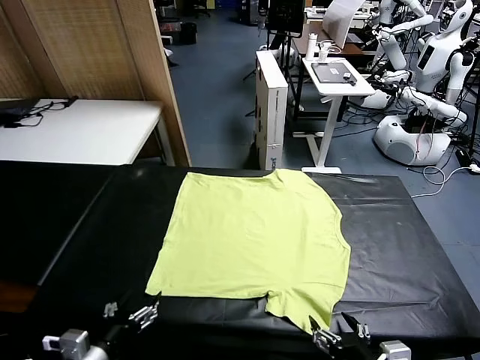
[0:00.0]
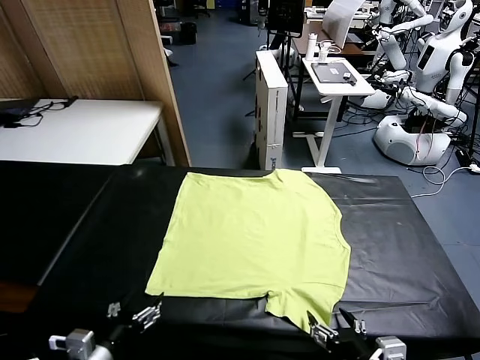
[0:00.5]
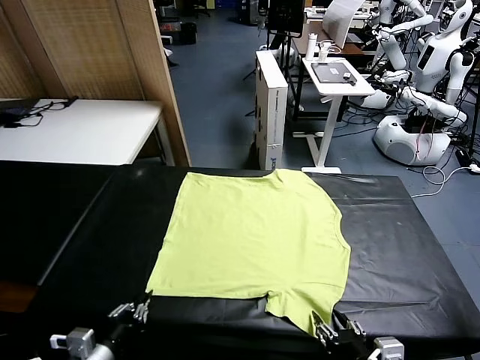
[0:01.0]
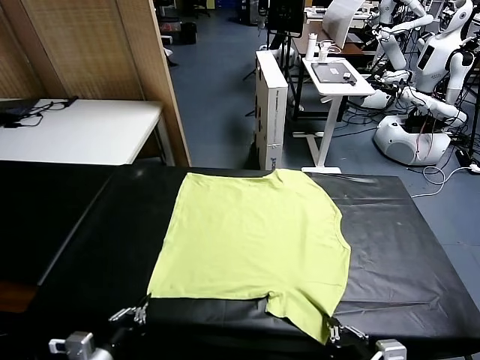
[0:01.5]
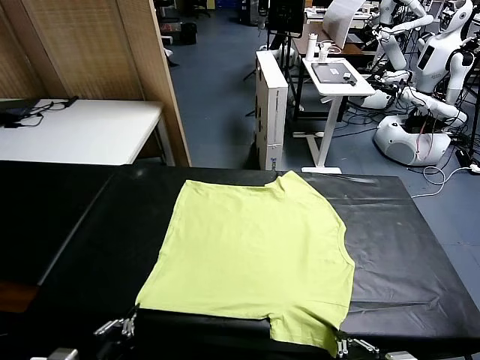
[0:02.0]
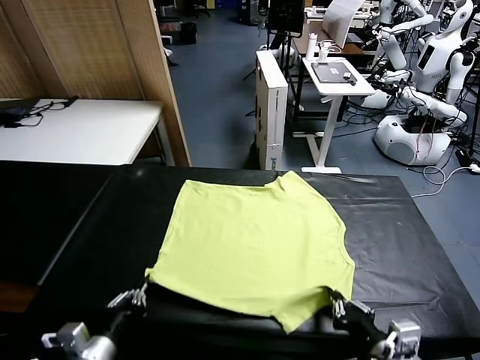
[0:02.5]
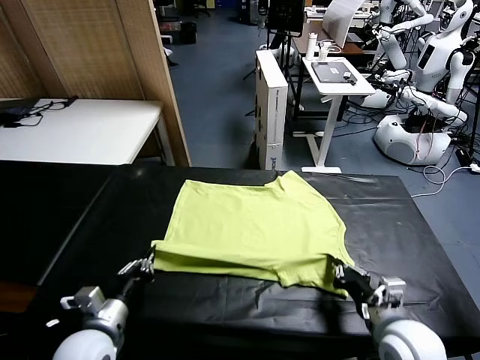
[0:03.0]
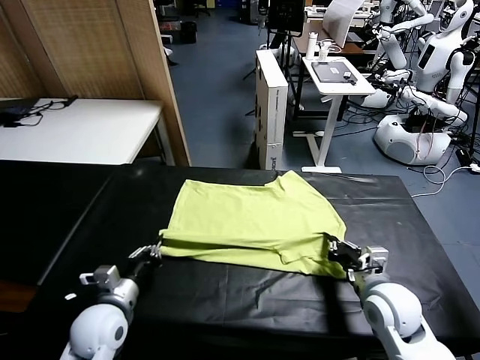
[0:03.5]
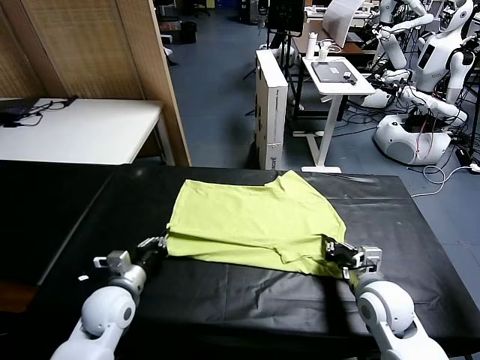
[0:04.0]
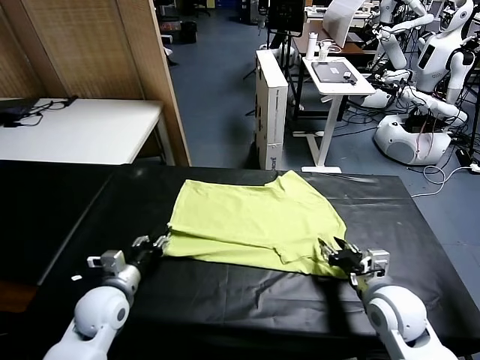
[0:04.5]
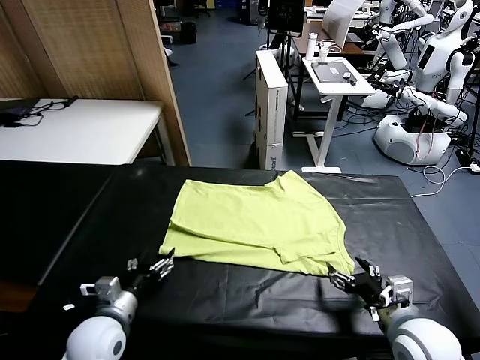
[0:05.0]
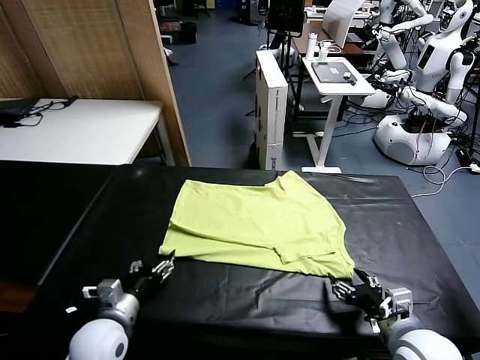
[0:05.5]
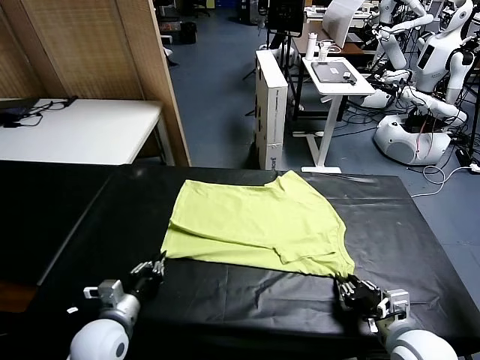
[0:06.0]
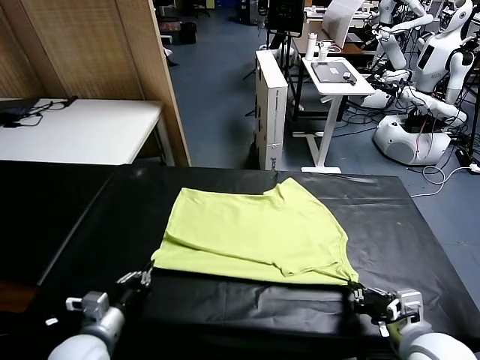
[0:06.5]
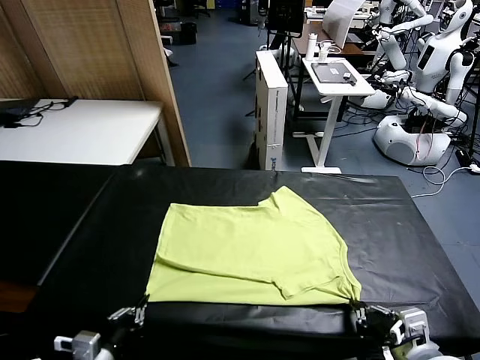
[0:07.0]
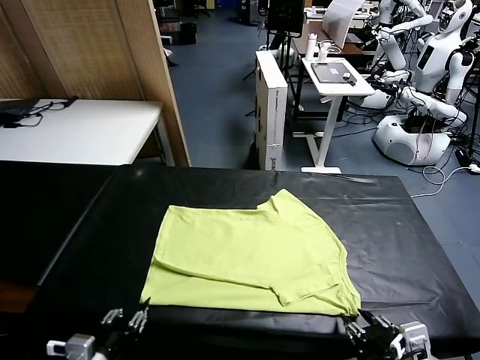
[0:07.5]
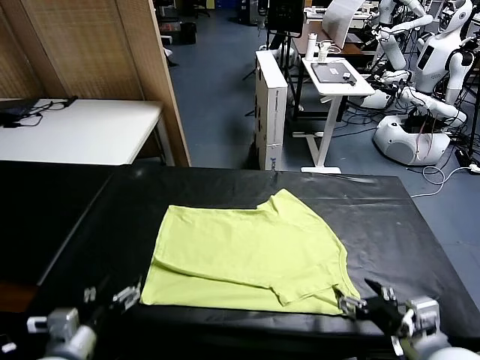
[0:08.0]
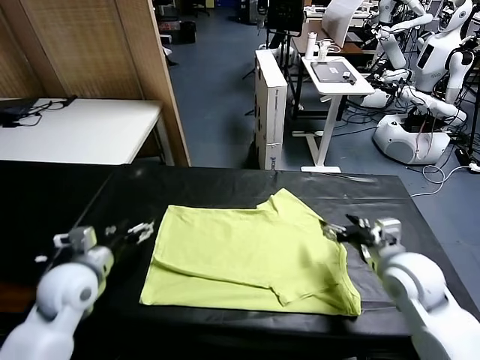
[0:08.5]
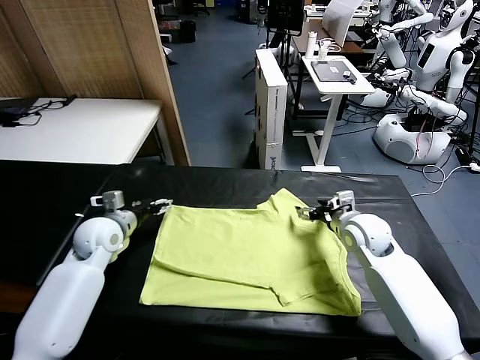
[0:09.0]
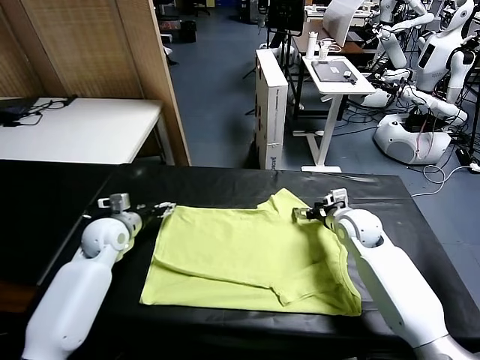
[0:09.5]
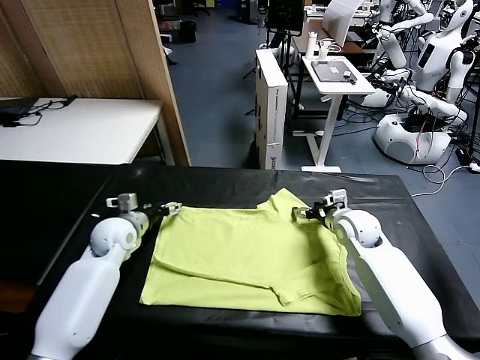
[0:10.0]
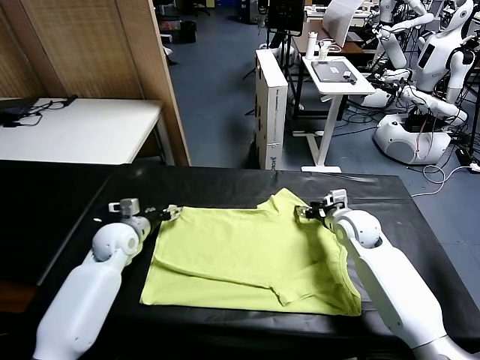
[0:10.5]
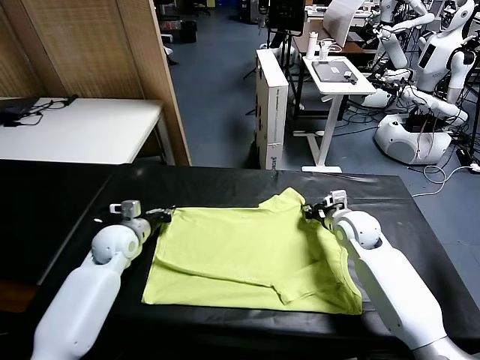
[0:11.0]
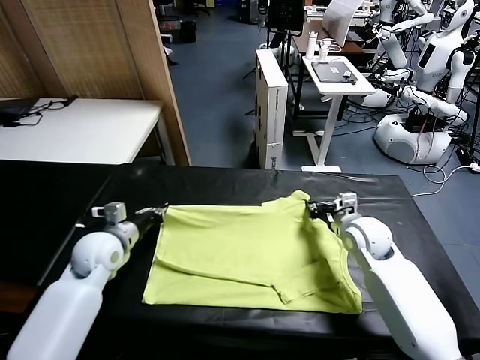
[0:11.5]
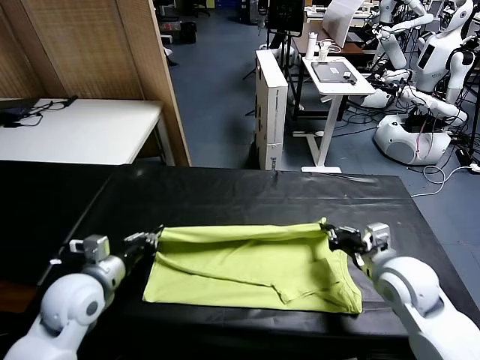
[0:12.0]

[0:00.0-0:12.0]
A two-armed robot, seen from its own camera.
Task of the whole recording: fold and organize the clothes.
Step, 0:00.0 to 0:01.5: use both grippers simultaneously to clamp the lower edge of the clothing fabric.
Step, 0:02.0 to 0:04.5: use both grippers to drag the lower edge of the fabric forward and fold it over the upper edge.
Step, 0:05.0 to 0:07.5: Drag the clothes downward with both gripper.
Step, 0:08.0 to 0:11.0: use both grippers simultaneously to clamp the upper edge of the clothing fabric.
0:02.0 to 0:04.0: Both grippers travel together forward, about 20 cm. The right gripper opens up.
0:04.0 to 0:06.0: Both grippers move backward, approximately 10 cm. The left gripper opens, then closes again; the right gripper closes its fingers.
0:06.0 to 0:08.0: The left gripper travels forward and upward by approximately 15 cm, and opens, while the right gripper shifts some 15 cm forward, and opens up.
0:08.0 to 0:10.0: The two grippers go approximately 15 cm forward and downward. The right gripper closes.
0:10.0 to 0:12.0: The two grippers go roughly 20 cm backward. The left gripper closes. Meanwhile the right gripper closes.

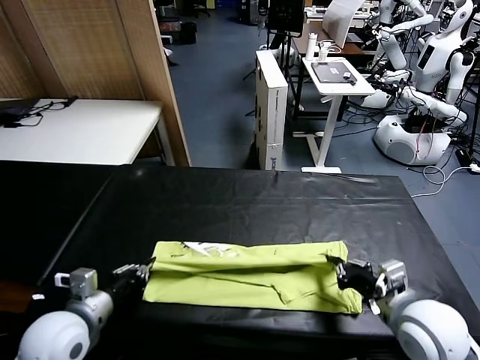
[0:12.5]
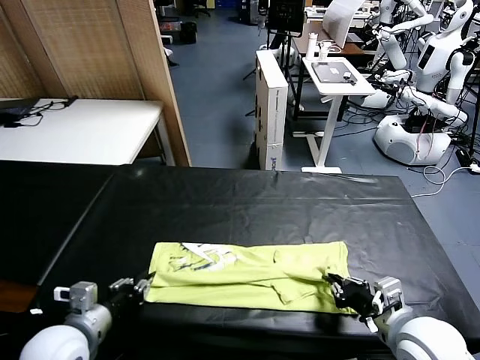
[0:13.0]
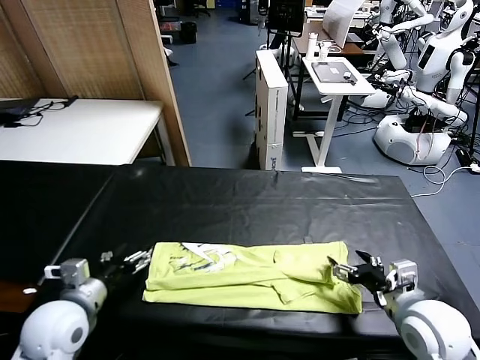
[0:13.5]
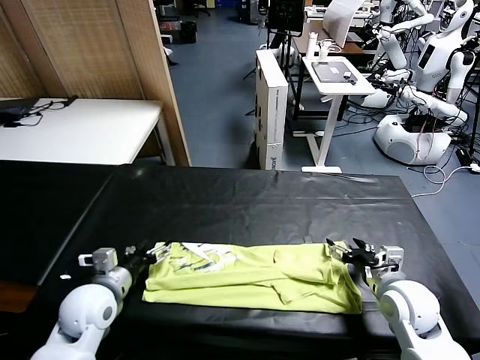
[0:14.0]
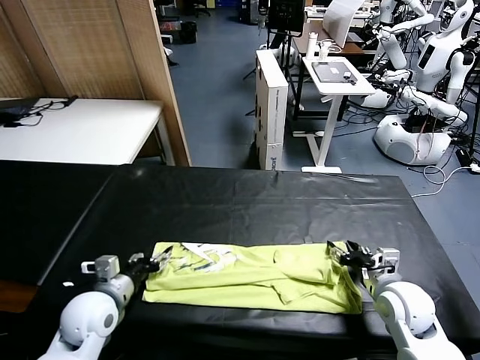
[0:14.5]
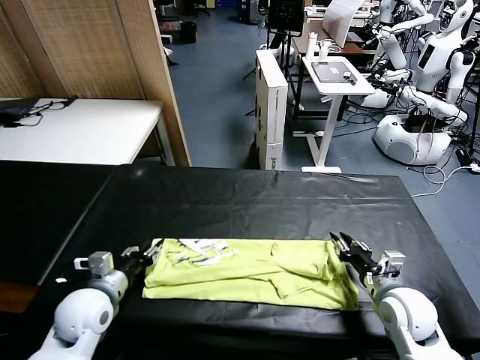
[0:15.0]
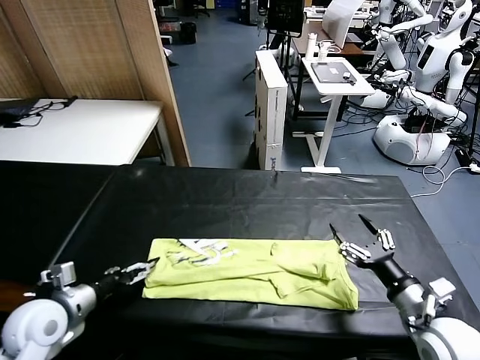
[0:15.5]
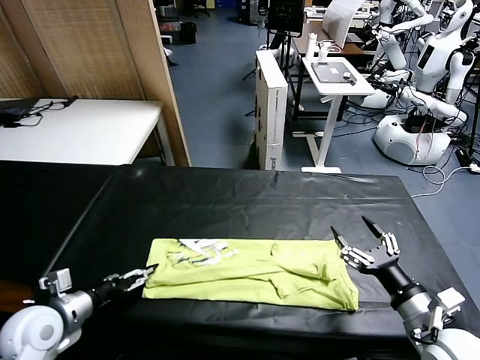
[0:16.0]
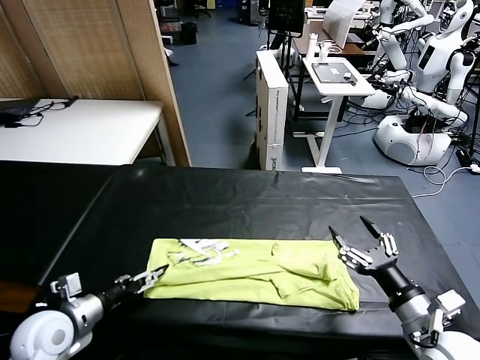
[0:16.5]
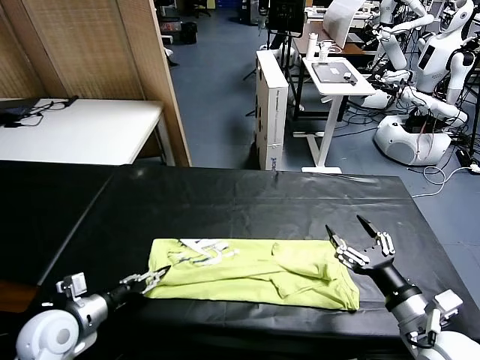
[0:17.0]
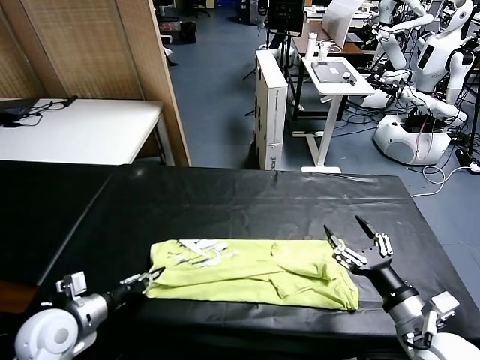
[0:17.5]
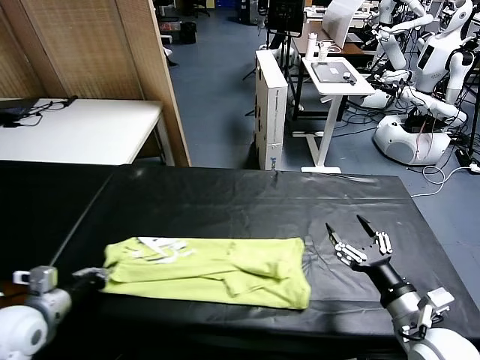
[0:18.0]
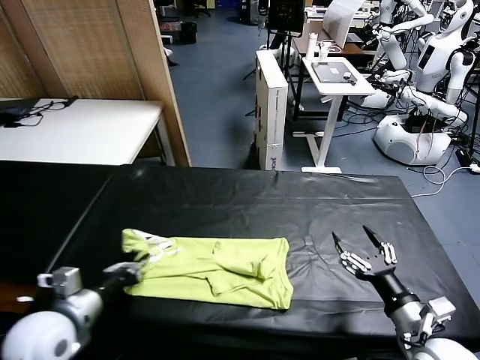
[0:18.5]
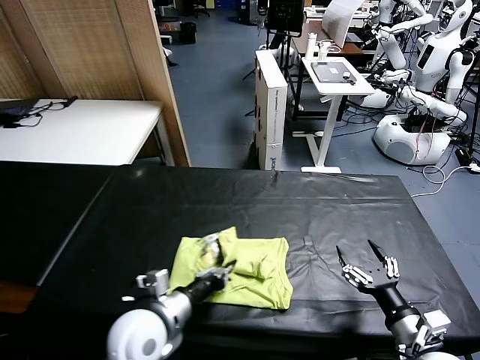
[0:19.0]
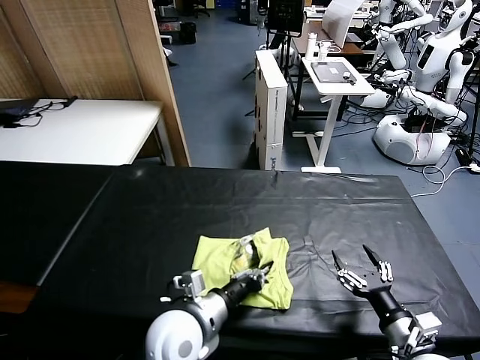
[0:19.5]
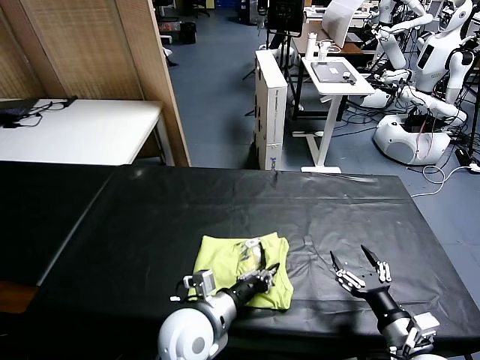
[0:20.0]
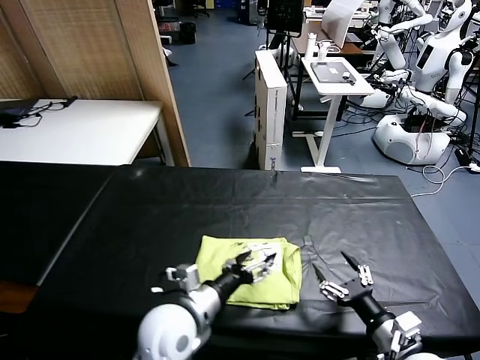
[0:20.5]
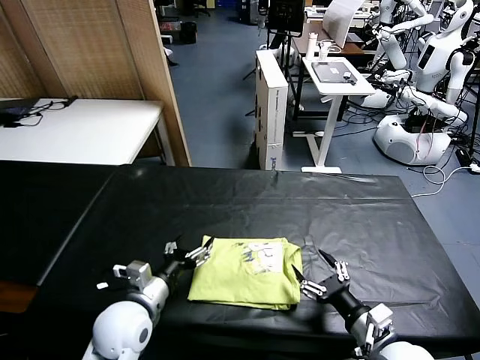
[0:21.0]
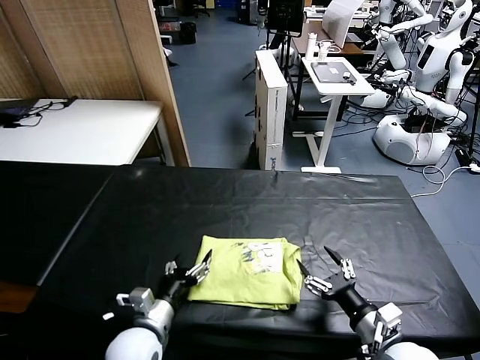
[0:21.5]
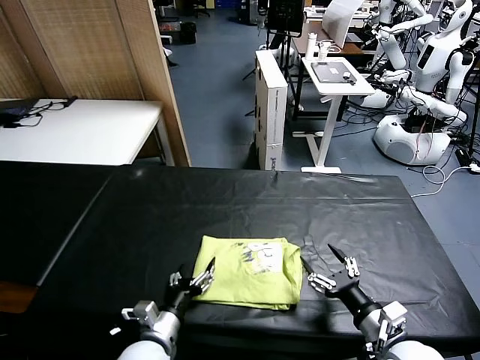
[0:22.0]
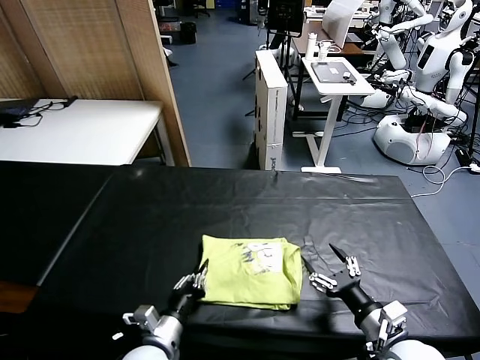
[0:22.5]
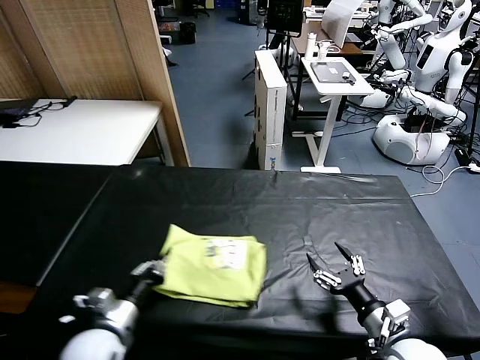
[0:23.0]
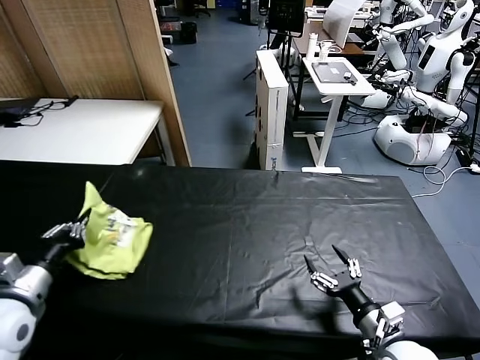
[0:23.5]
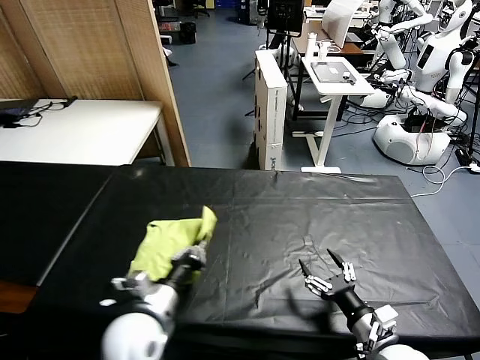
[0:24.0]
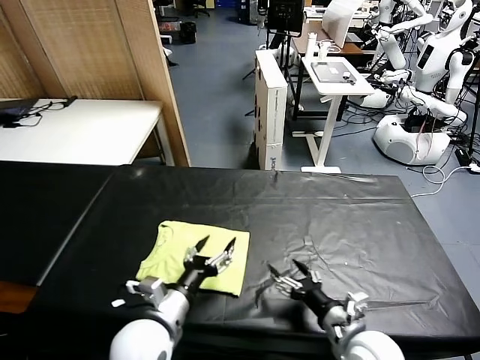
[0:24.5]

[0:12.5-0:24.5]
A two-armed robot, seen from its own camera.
Task of the whole recording: fold and organize the clothes.
Step, 0:13.5 to 0:17.0: use the left gripper to clamp the left edge of the fabric.
Step, 0:17.5 to 0:20.0: use the left gripper to drag the left edge of the fabric to the left and folds it over the right edge.
Step, 0:20.5 to 0:24.0: Flip the folded clothes over with left gripper.
0:12.5 to 0:14.5: The right gripper goes roughly 10 cm forward and downward, and opens, then closes once more; the left gripper shifts approximately 5 cm forward, and opens its fingers.
0:14.5 to 0:16.5: The left gripper moves to the left, about 10 cm, and opens. The right gripper heads backward and upward, covering about 10 cm, and opens.
0:16.5 to 0:18.5: The left gripper shifts by some 5 cm, and closes its fingers.
0:18.5 to 0:20.5: The left gripper heads to the right, covering some 30 cm, and opens its fingers. The right gripper travels downward by approximately 5 cm.
0:20.5 to 0:22.5: The left gripper heads to the left and downward, covering roughly 15 cm, and opens up.
0:22.5 to 0:24.5: The left gripper travels upward by about 5 cm, goes to the left and returns, roughly 20 cm each way, and closes its fingers.

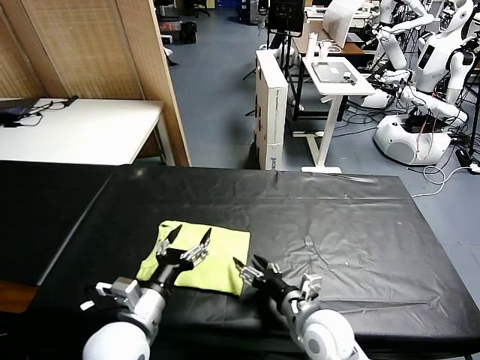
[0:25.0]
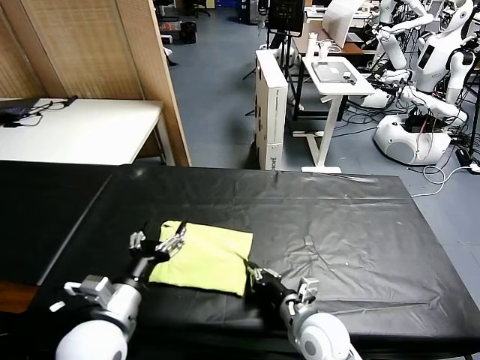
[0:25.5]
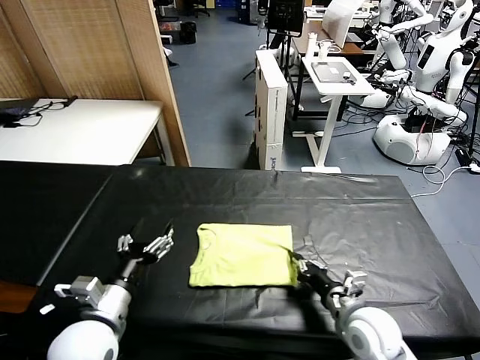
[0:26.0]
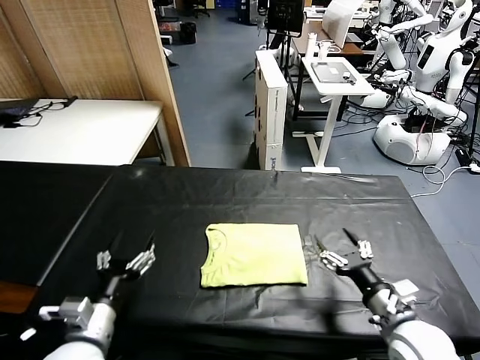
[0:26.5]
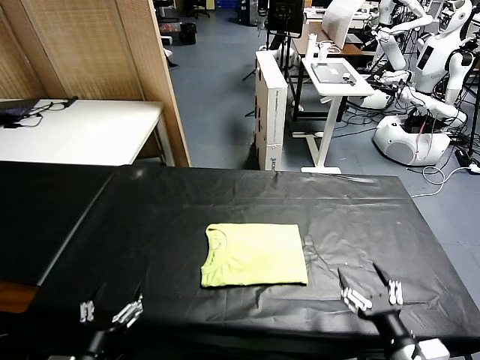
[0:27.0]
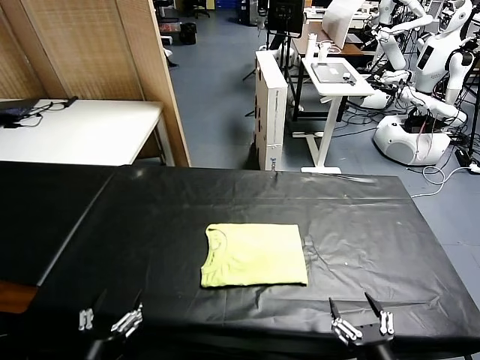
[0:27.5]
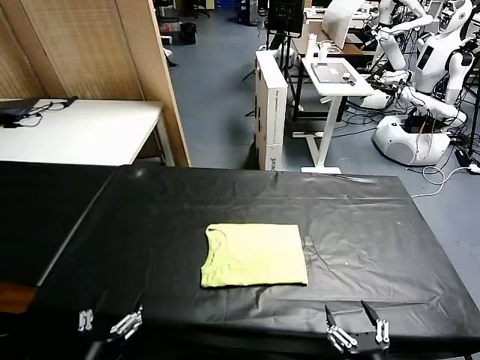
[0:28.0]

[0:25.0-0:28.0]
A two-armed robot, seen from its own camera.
Task of the whole recording: fold and organize the clothes.
Step, 0:25.0 to 0:26.0: Drag the clothes to the center of the table.
0:25.0 to 0:26.5: The right gripper is displaced to the right by approximately 10 cm, and closes, then reopens, while the left gripper goes some 5 cm to the left.
0:26.5 to 0:28.0: Both grippers move backward, about 15 cm.
